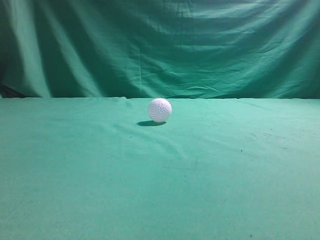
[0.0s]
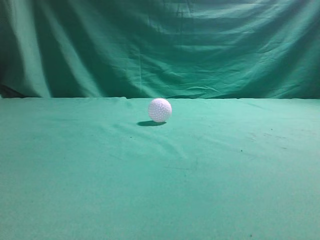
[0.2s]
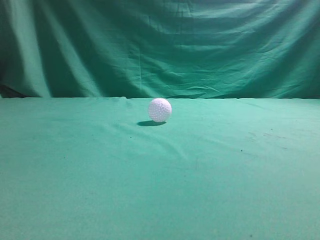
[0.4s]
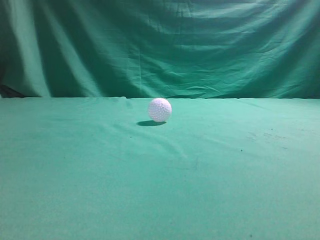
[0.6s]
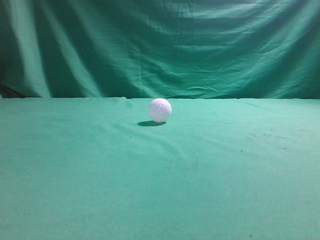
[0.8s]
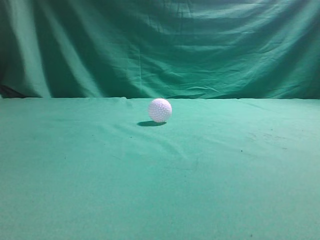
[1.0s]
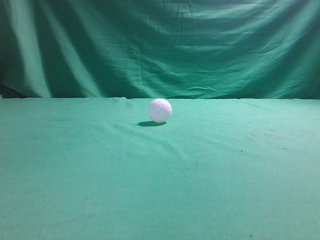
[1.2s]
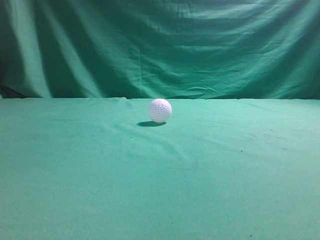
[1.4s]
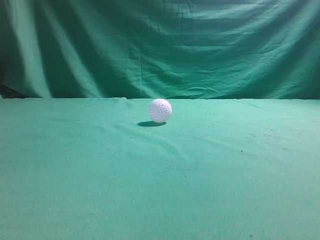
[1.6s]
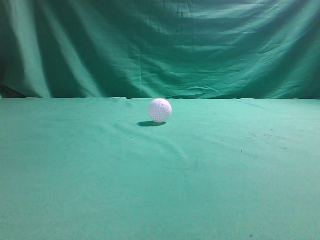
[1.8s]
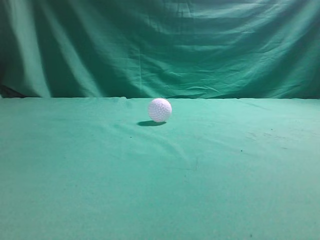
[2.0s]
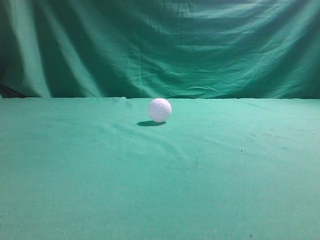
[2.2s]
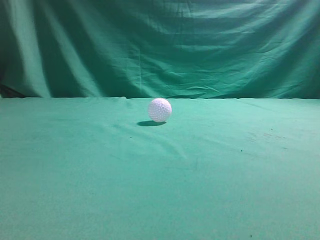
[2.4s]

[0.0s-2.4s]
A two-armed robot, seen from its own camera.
Task of the whole recording: pick up the ball and place it on the plate, then pick up the ball from the plate and put it in the center of the table.
1.2s to 2.4s: The two grippers keep their place.
